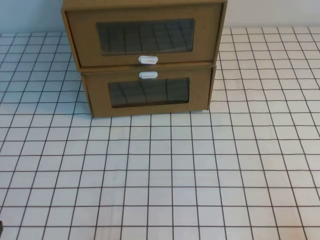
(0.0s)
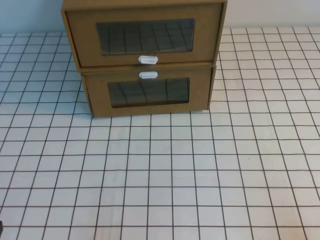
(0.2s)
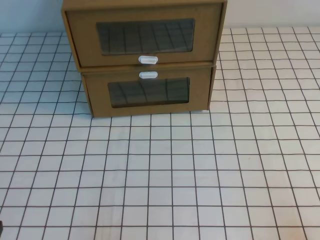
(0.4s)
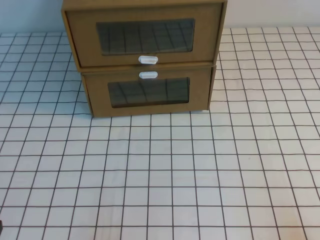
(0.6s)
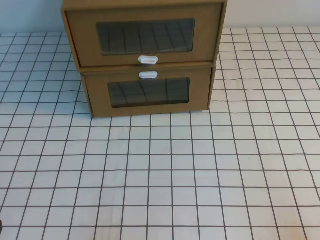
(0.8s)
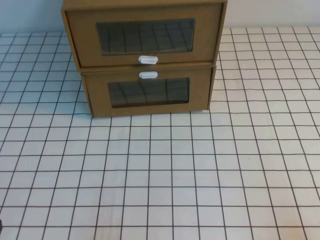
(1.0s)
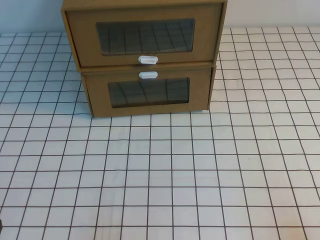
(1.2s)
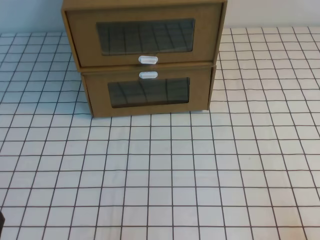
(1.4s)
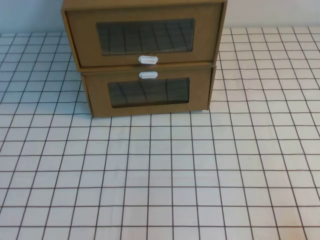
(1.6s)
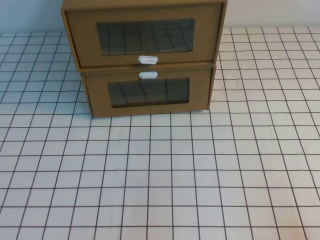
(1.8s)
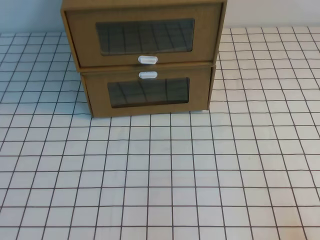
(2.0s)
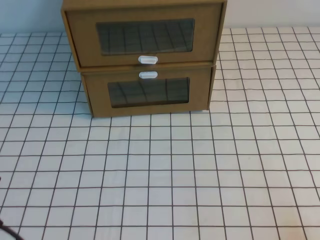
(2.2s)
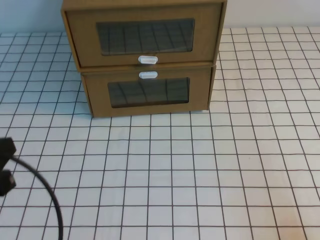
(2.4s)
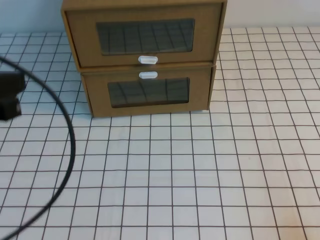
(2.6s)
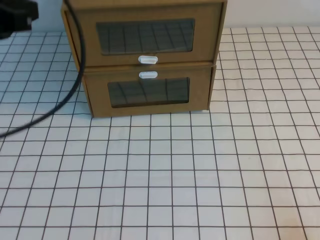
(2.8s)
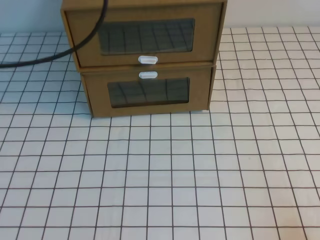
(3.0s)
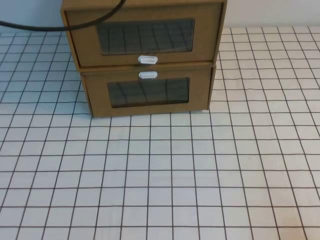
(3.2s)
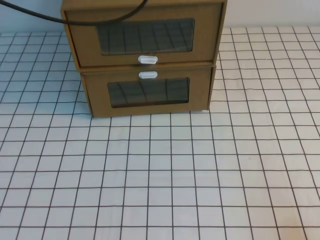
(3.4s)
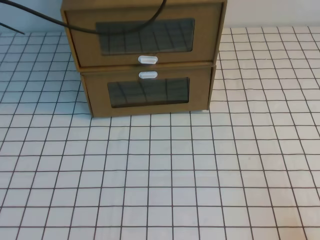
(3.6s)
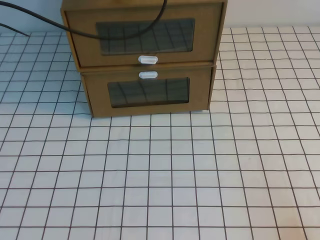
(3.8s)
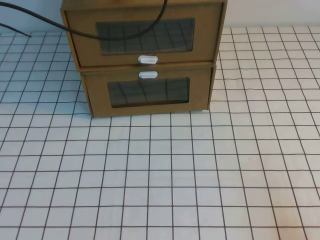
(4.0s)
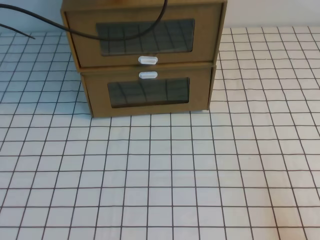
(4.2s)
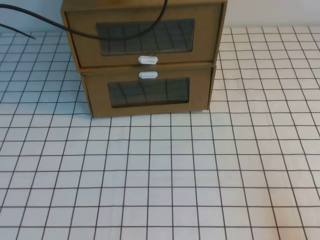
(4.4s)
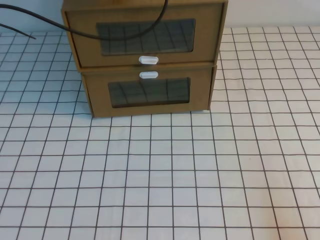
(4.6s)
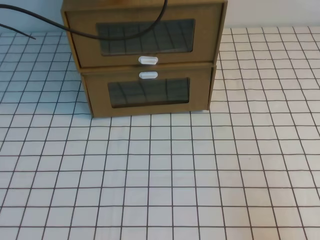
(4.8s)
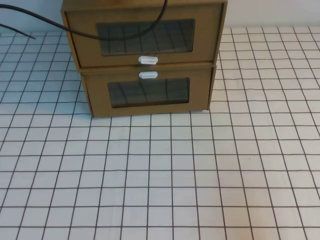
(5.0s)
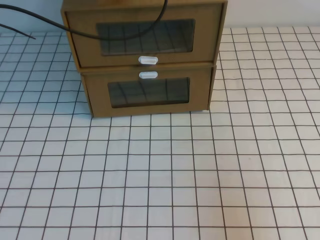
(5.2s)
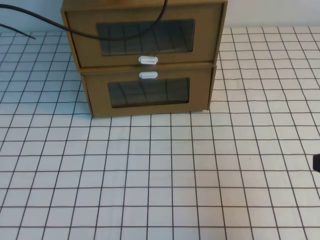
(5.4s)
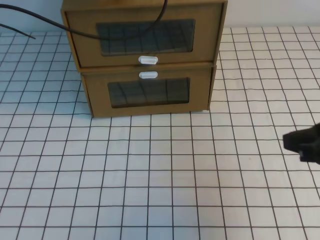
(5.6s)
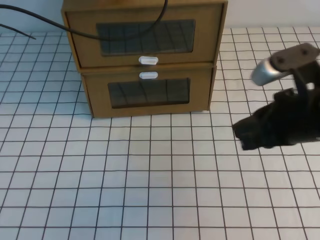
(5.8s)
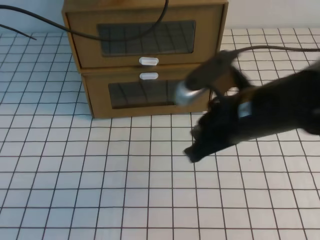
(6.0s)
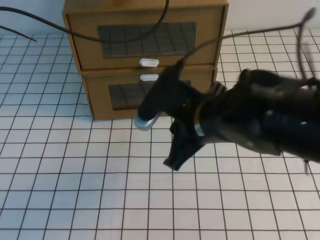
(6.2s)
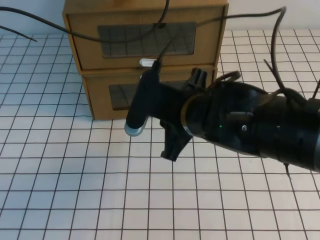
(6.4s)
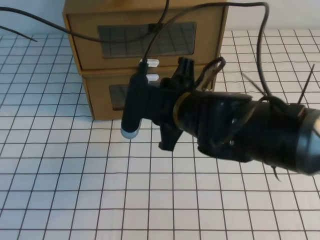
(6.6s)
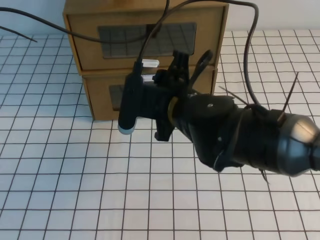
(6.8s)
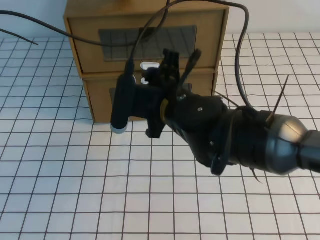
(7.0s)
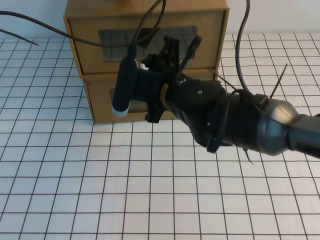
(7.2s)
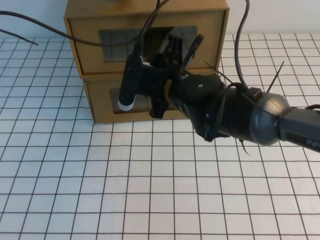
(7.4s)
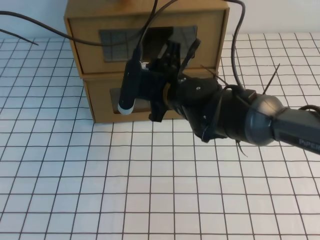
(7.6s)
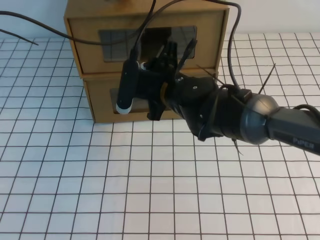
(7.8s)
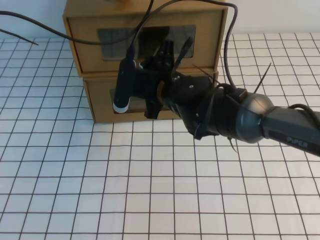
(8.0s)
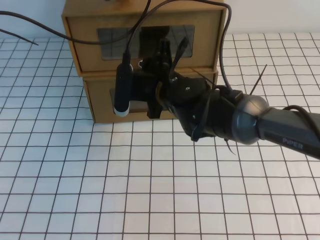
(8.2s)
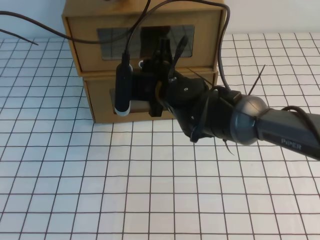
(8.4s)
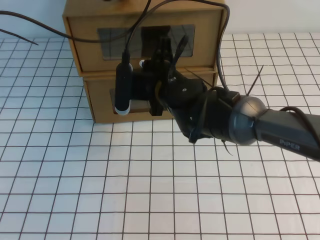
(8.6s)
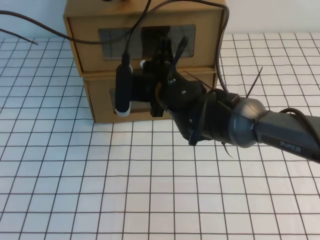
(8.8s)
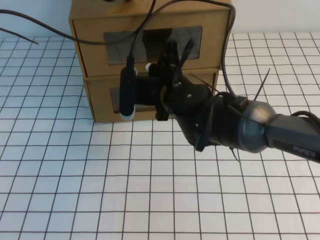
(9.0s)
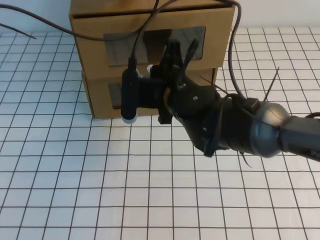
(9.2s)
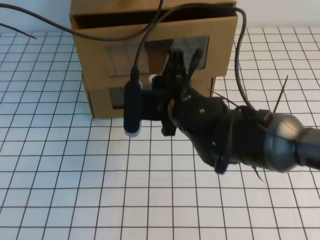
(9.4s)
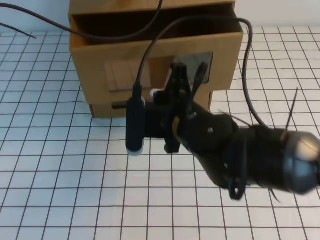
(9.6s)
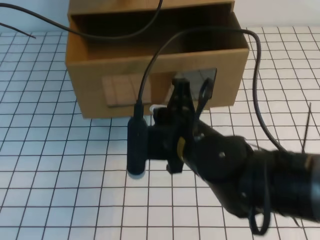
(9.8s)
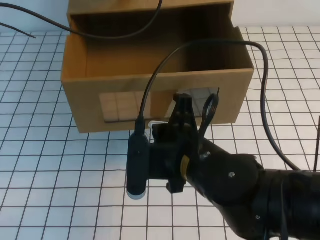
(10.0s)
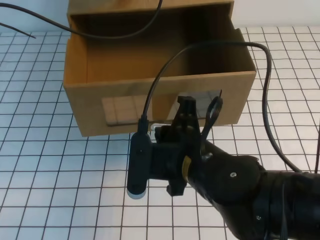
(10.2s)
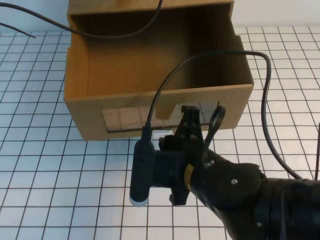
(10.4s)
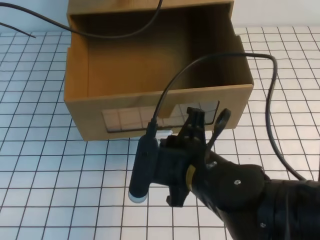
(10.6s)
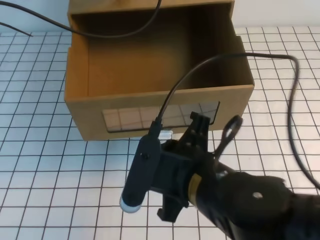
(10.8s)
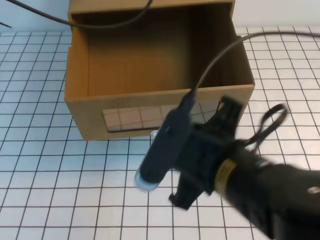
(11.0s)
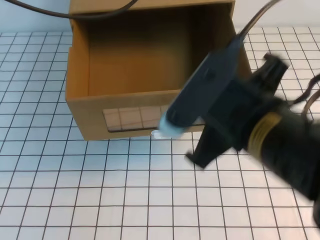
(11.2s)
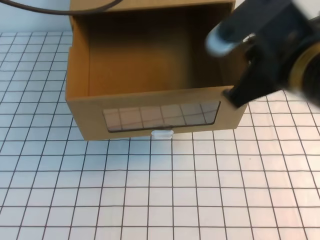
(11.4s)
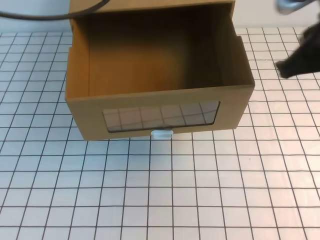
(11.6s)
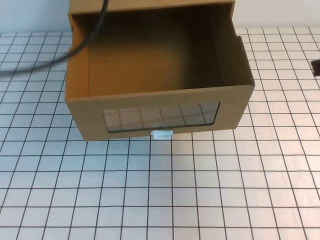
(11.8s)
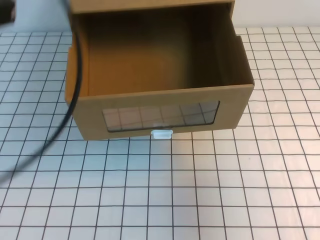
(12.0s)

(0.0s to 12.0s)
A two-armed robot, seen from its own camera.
Task of the whole recording: open the shoebox on the white tablecloth.
1.6s - 3.0s: The left gripper shifts some 35 cm upward and forward.
3.0s - 4.4s: The left gripper heads forward and to the right, covering roughly 15 cm.
4.4s - 6.0s: The right gripper travels forward, to the left and upward by some 30 cm.
6.0s - 7.6s: The right gripper moves to the left and forward, approximately 15 cm, and opens up.
7.6s - 9.0s: The right gripper closes.
9.0s - 10.4s: The right gripper is displaced backward by approximately 15 cm.
10.4s - 12.0s: The right gripper travels to the right and upward by about 25 cm. Meanwhile the left gripper shifts roughly 25 cm backward.

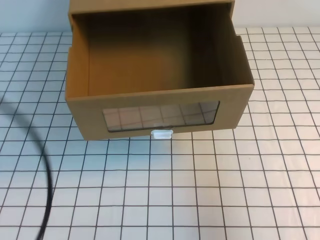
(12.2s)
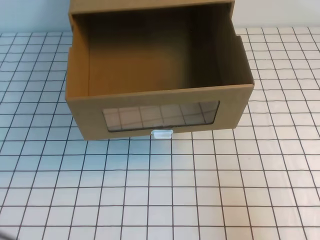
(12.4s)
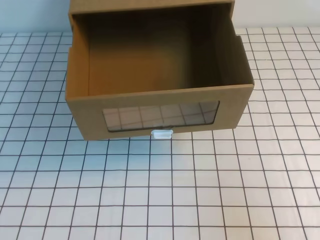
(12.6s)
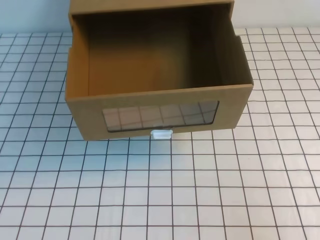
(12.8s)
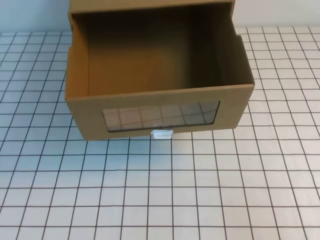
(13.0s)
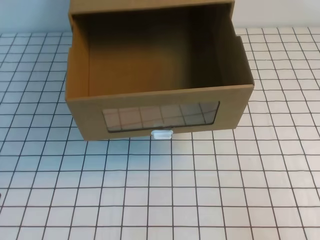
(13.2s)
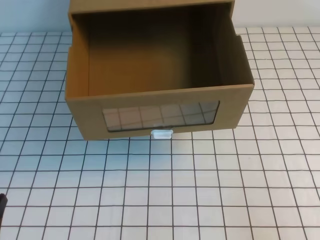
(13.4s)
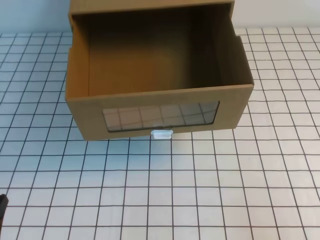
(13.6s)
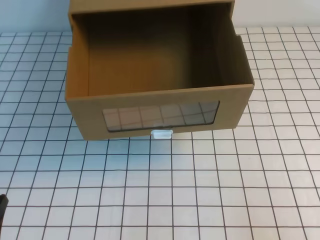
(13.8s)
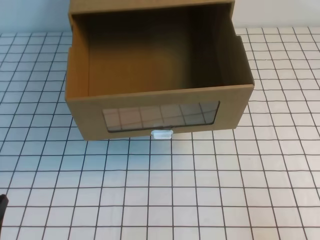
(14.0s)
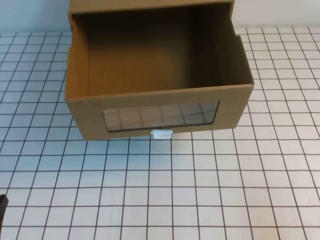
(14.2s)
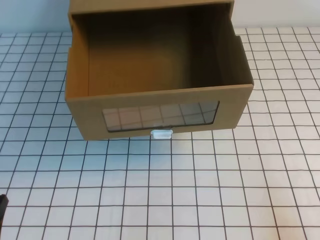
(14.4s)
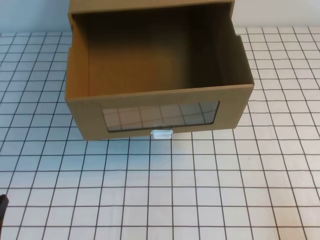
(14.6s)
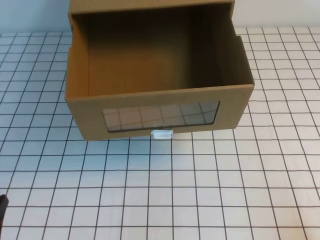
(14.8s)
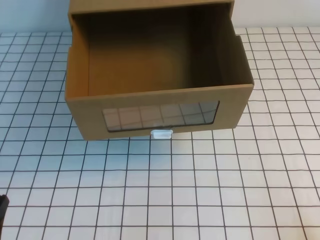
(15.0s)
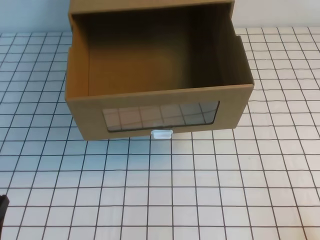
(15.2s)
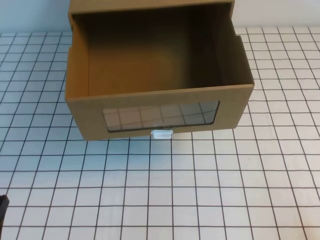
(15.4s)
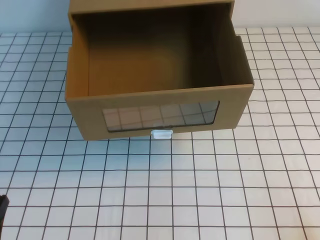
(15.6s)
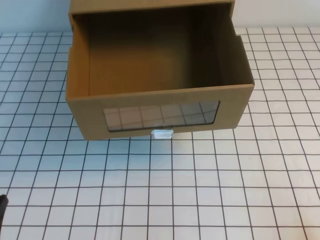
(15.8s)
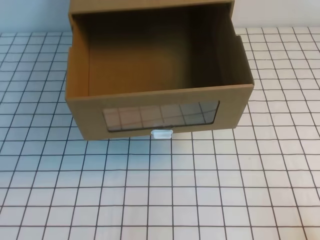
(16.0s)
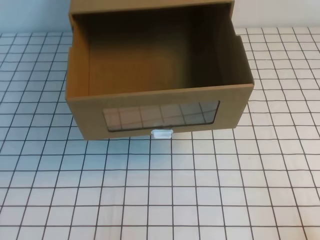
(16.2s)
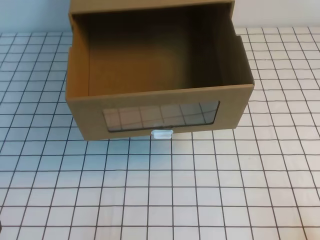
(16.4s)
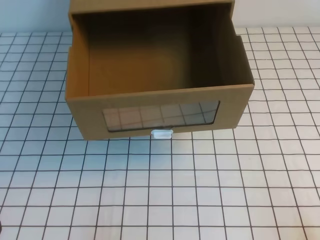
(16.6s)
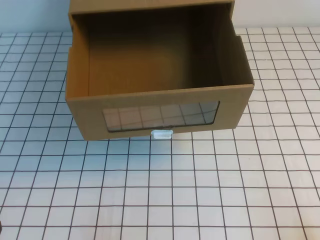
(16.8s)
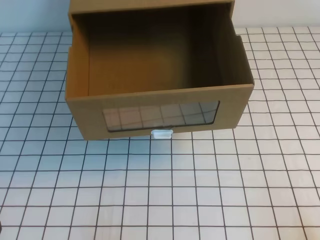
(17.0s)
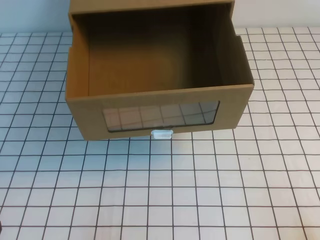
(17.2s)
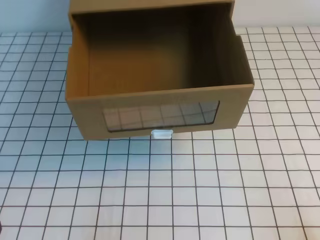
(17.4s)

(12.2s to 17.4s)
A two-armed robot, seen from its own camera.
Task of the whole recording: open the shoebox on the white tablecloth.
Step, 12.2s - 17.4s: Open the shoe box.
12.2s - 14.0s: The right gripper heads backward and downward, covering some 15 cm. Meanwhile the left gripper shifts about 25 cm downward.

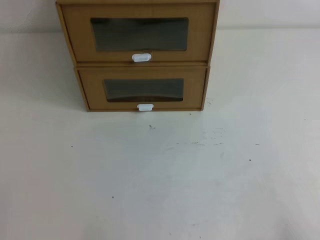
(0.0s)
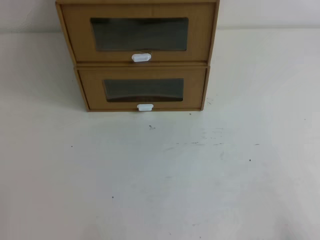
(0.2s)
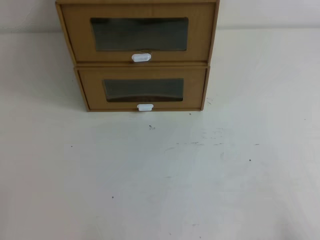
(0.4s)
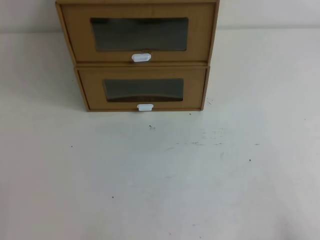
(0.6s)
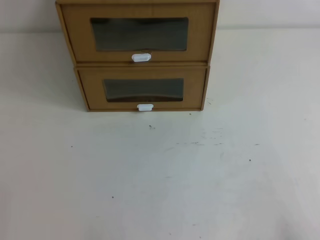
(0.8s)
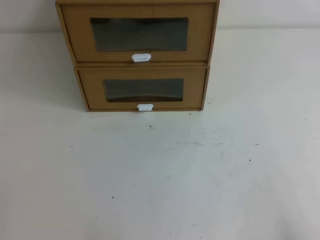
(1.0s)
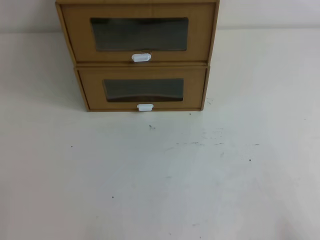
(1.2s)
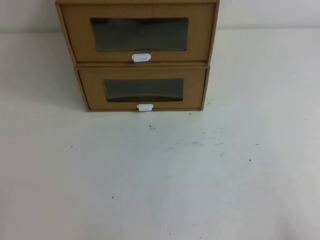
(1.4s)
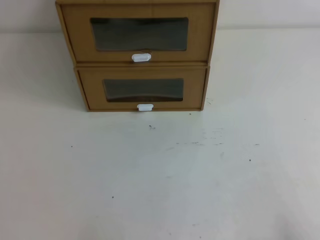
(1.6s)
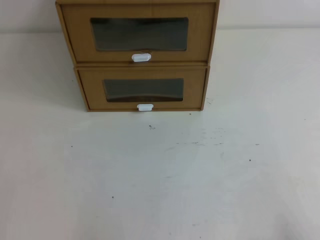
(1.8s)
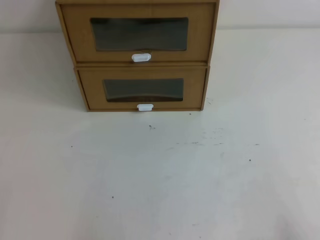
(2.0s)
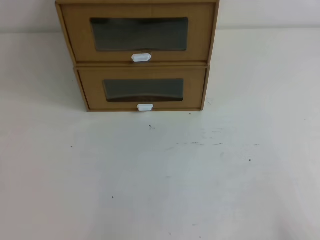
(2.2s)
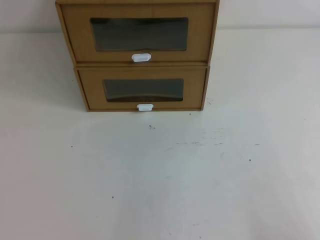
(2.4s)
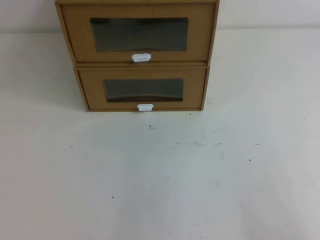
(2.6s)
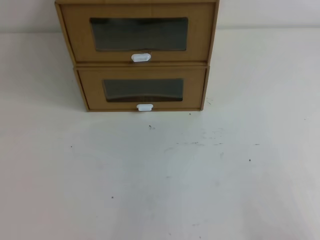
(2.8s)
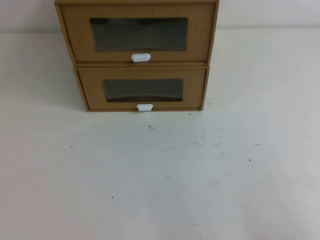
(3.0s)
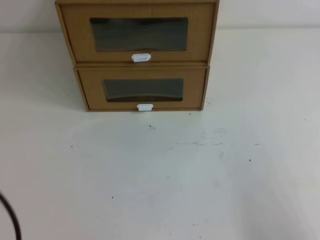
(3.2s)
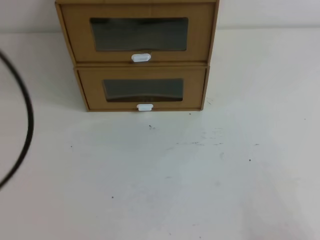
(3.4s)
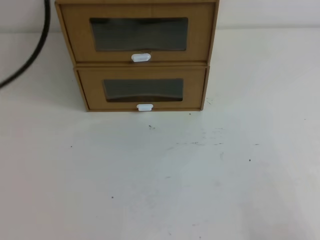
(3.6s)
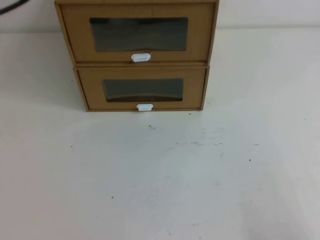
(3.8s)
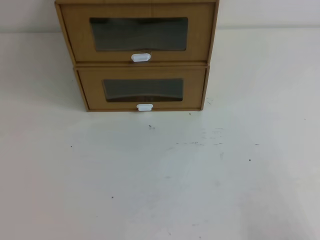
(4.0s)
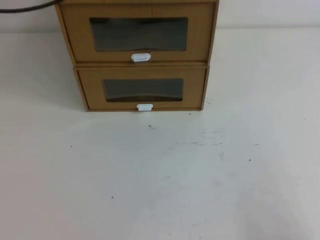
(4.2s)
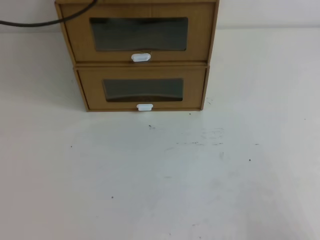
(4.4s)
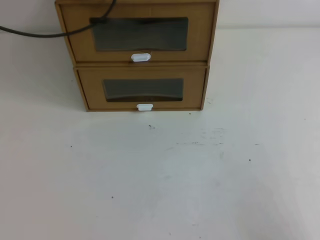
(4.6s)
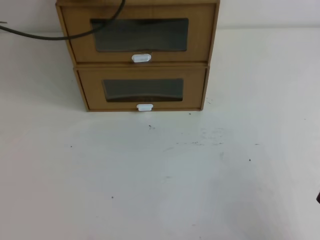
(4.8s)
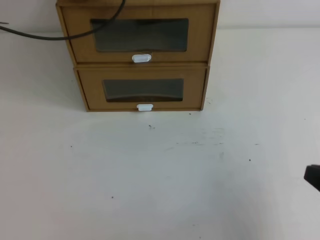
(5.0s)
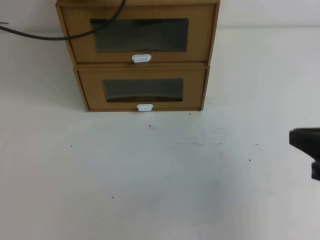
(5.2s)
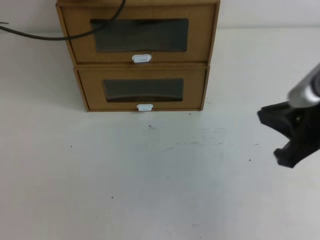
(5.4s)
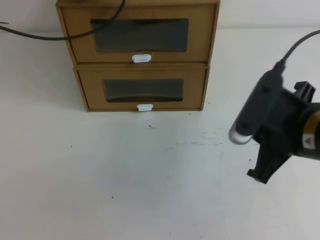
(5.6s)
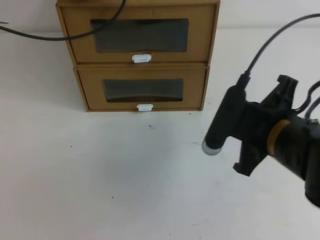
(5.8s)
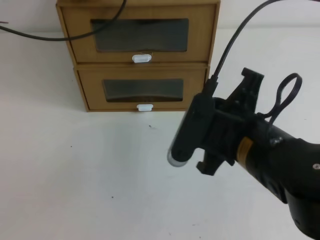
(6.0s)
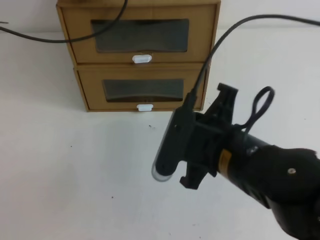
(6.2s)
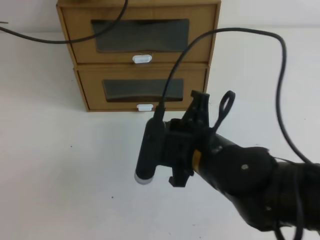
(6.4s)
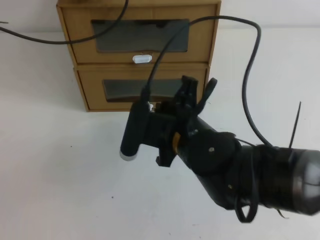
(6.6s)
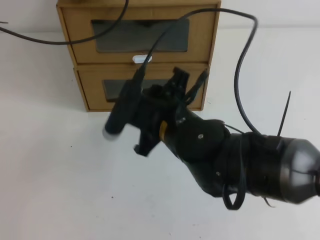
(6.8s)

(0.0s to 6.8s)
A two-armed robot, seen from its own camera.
Task of the whole recording: open the shoebox on the table.
0.0s - 1.4s: The two grippers keep their place.
4.0s - 5.4s: The left gripper travels downward and forward by about 20 cm; the right gripper travels forward, upward and to the left by some 20 cm.
5.4s - 6.8s: The right gripper goes some 20 cm to the left, and opens its fingers.
